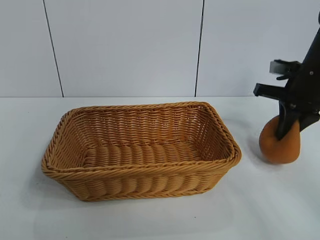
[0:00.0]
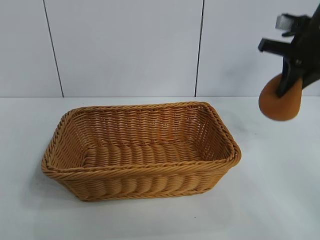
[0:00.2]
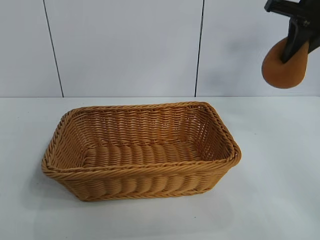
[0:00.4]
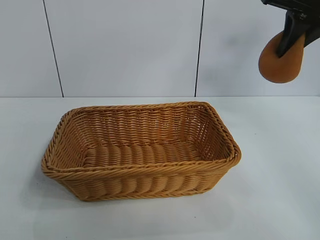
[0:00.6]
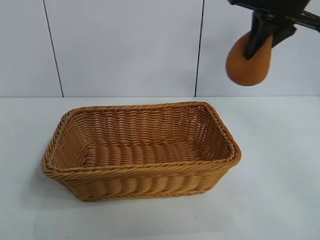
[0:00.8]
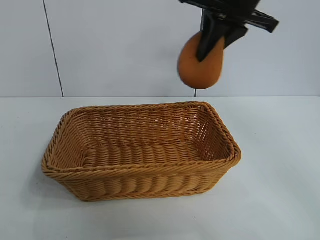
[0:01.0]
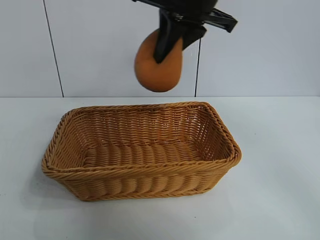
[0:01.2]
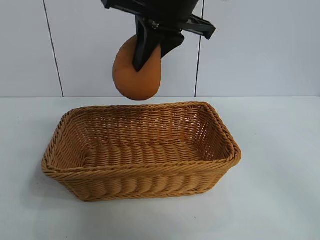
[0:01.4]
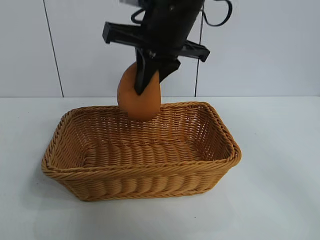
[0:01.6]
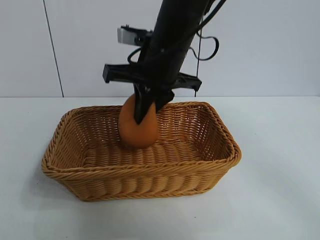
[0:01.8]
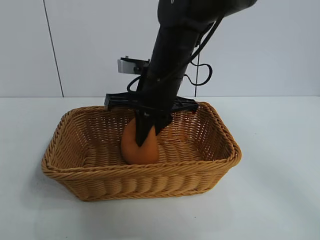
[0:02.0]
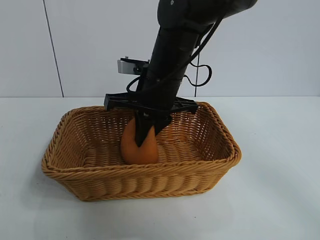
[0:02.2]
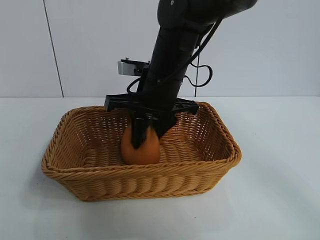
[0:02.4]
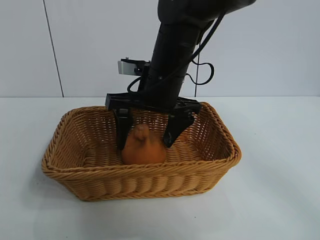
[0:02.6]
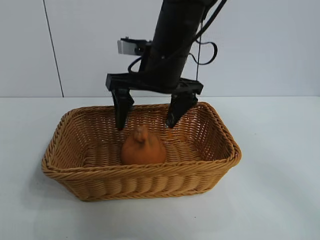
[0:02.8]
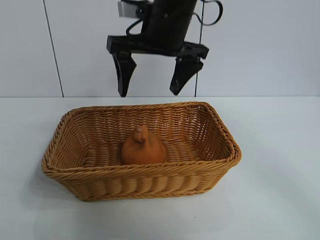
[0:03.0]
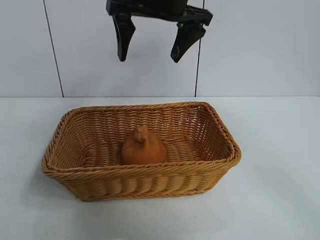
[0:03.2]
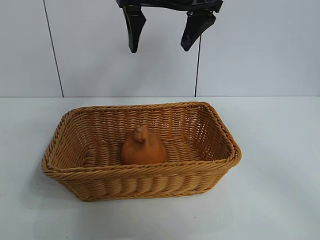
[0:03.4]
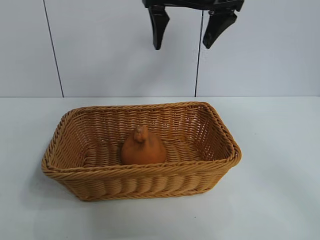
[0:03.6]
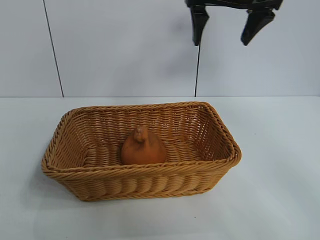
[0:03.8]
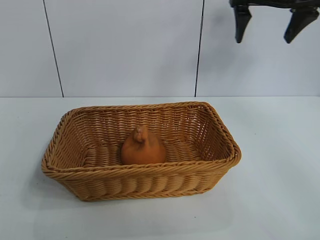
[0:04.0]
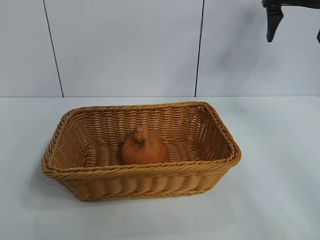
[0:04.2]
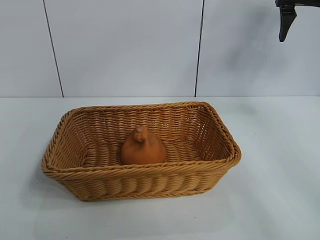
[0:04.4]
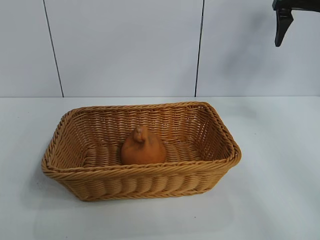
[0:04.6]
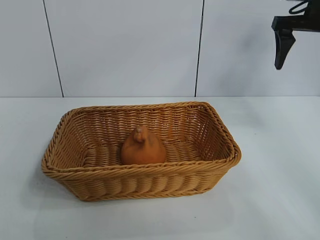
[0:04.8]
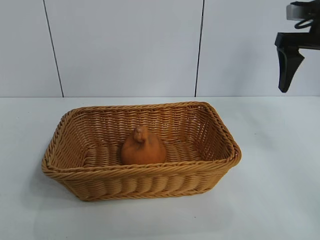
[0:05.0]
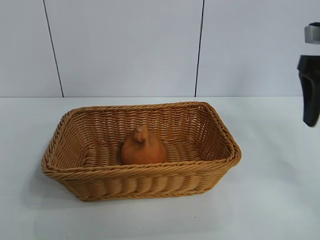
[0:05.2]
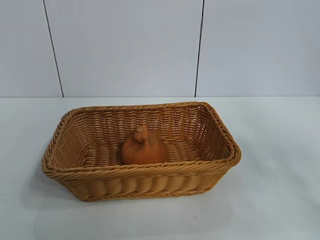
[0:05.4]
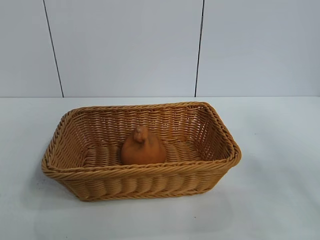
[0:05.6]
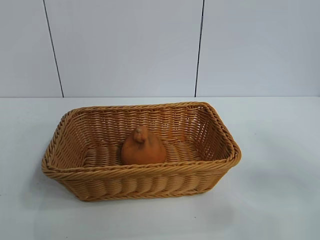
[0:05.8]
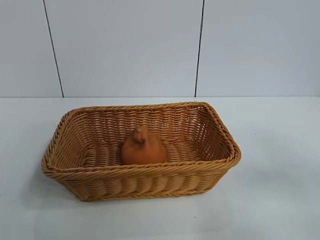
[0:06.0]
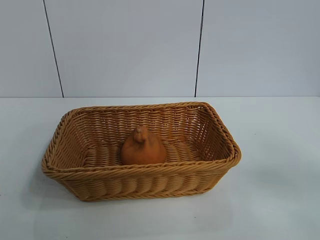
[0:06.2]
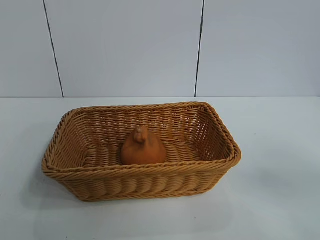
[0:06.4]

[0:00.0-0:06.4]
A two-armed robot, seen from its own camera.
Task of the whole recording: pick up the orange and put it into the basket.
Step, 0:00.0 to 0:02.6: Place the orange in the basket with right gripper.
